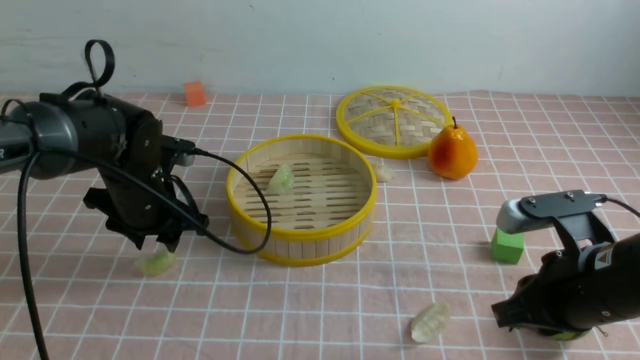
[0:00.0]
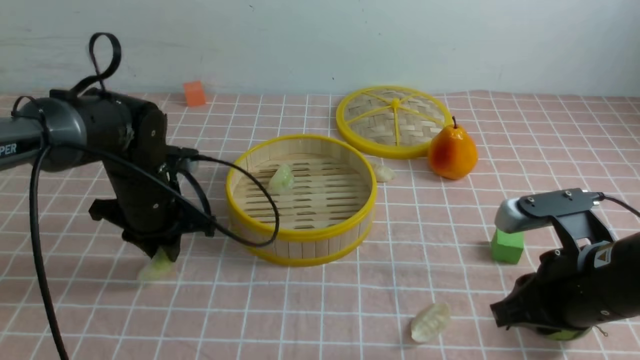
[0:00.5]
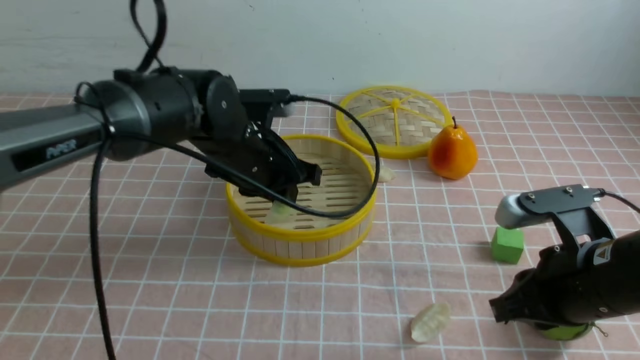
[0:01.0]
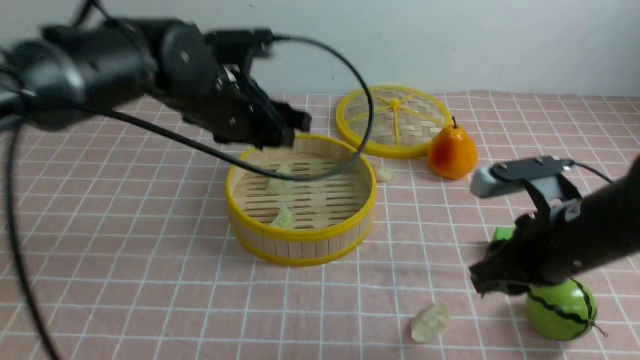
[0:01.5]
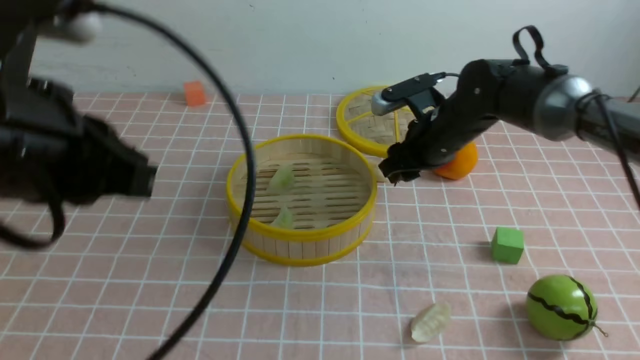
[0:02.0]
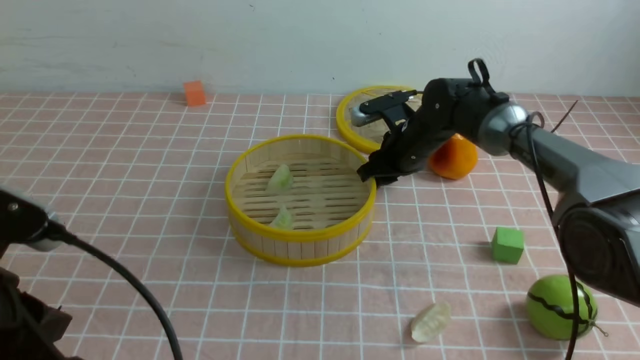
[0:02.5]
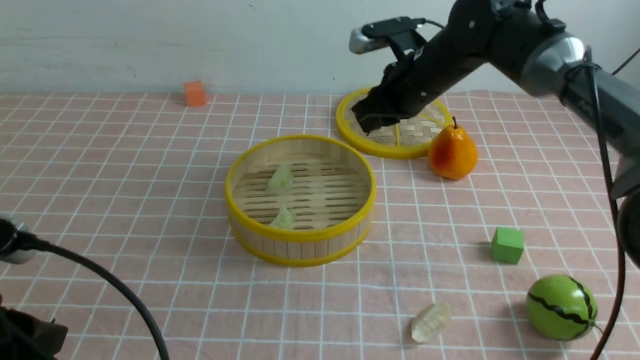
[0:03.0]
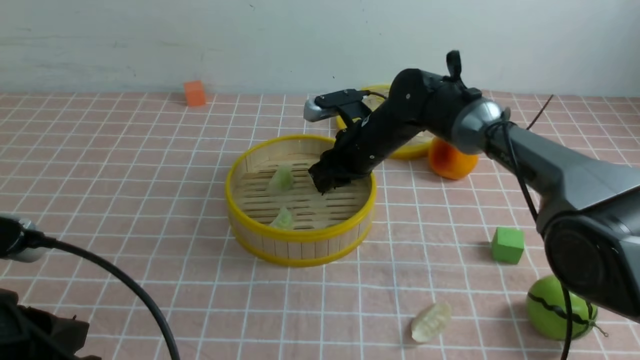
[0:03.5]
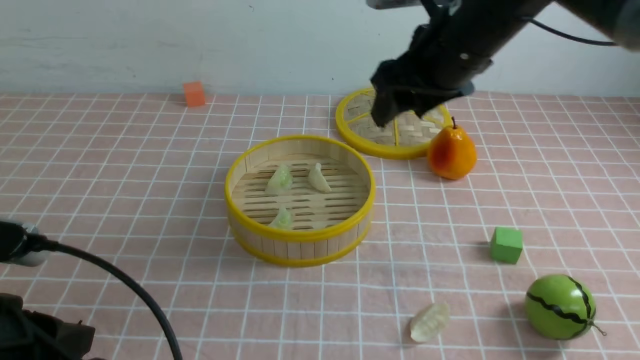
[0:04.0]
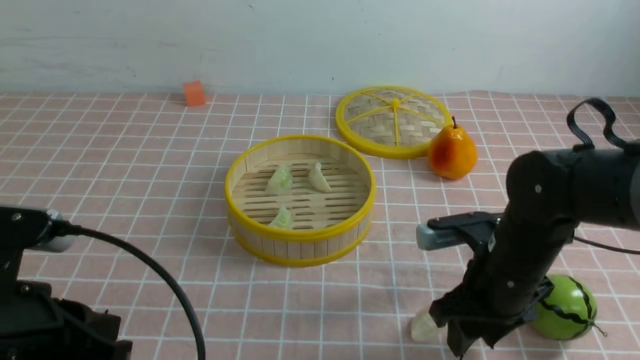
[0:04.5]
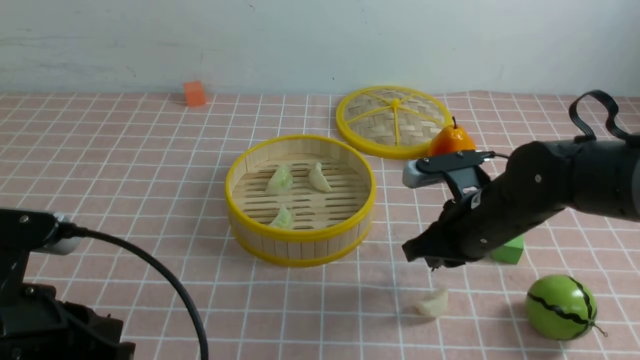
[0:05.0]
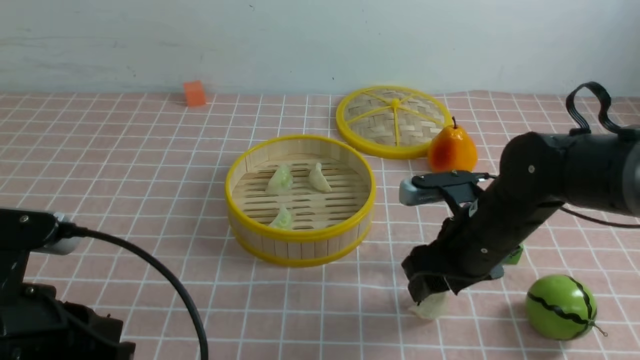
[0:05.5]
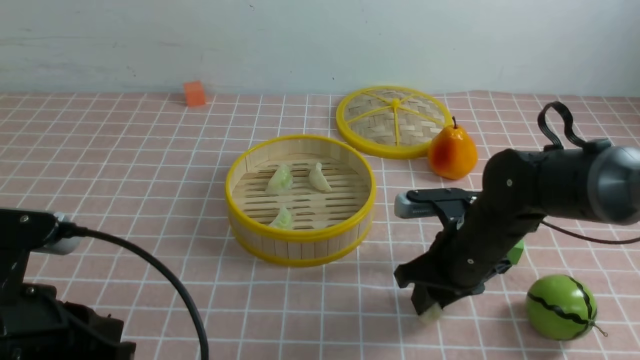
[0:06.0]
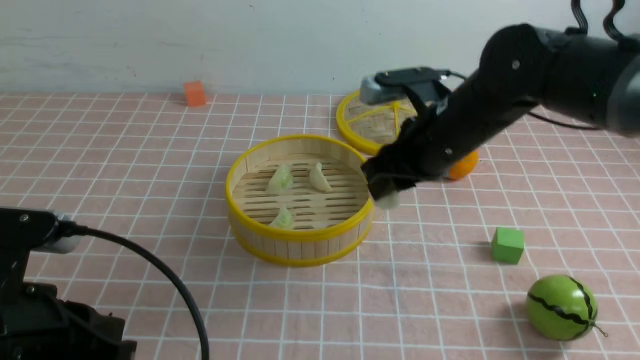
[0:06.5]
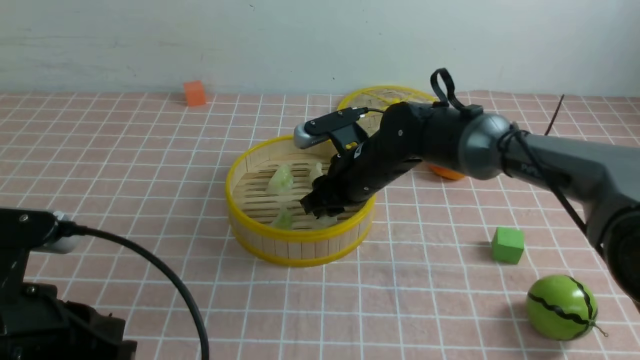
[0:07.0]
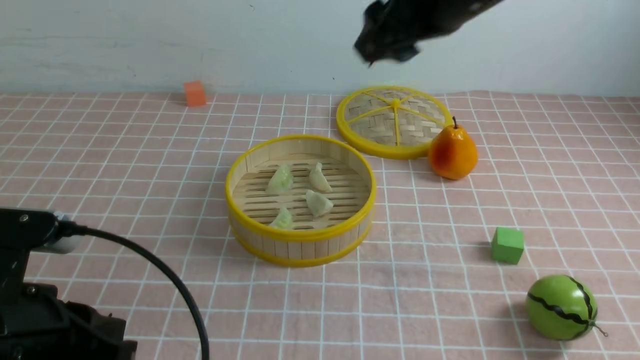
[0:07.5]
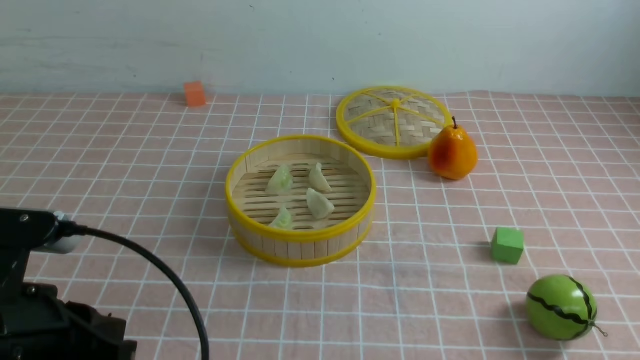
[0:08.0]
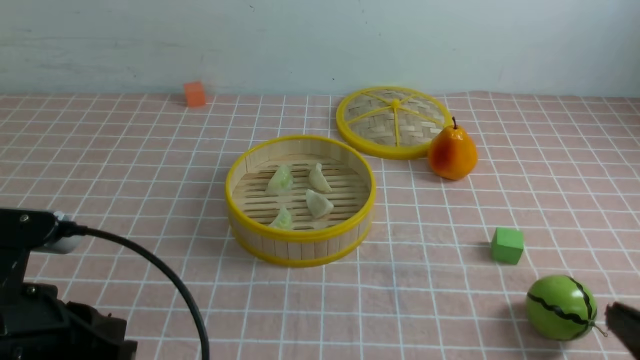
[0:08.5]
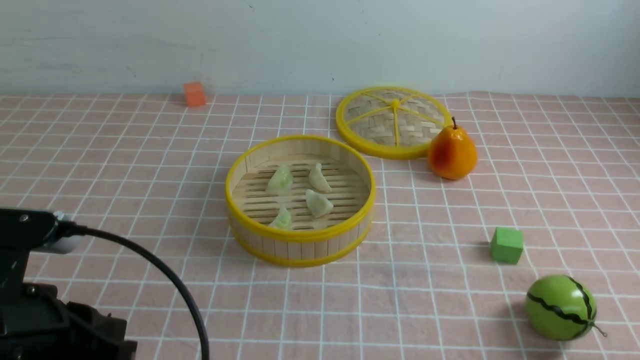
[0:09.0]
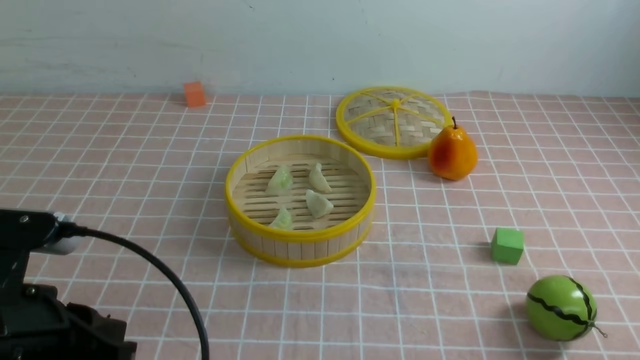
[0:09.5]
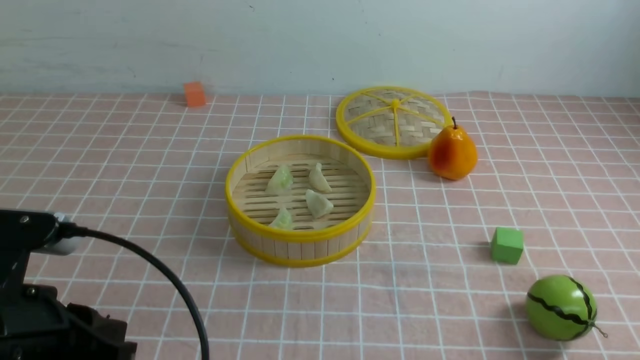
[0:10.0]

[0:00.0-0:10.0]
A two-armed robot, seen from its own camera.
Task of the whole recording: put the dumplings into the steamer on the table with the pink tablecloth.
Step, 0:02.0 to 0:02.5: use the right arm to grab a dumpling.
Step, 0:03.0 to 0:03.5: use the right arm to put the dumpling into the steamer.
Step, 0:04.0 to 0:06.0: use the right arm to grab a dumpling.
Step, 0:06.5 to 0:07.0: use the right arm to put the dumpling into the steamer.
0:00.0 to 0:02.0: The left gripper shifts about 25 cm backward and upward, and closes its fingers. The right gripper goes approximately 25 cm forward, and opens.
0:02.0 to 0:04.0: The left gripper goes about 10 cm downward and backward; the right gripper swings up and down, some 15 cm each way, with 3 reversals, and closes, then reopens.
0:04.0 to 0:06.0: The right gripper goes approximately 15 cm downward and backward, and closes its fingers.
0:06.0 to 0:08.0: The right gripper travels upward and backward by approximately 30 cm, and closes up.

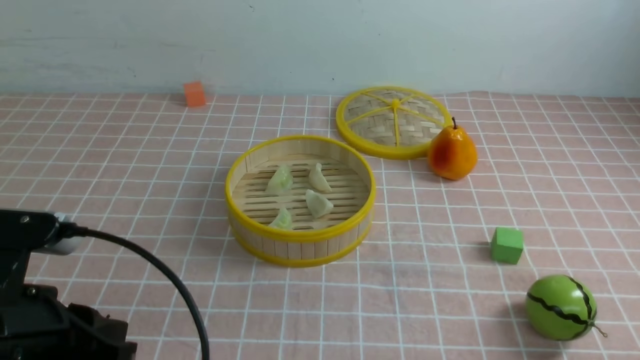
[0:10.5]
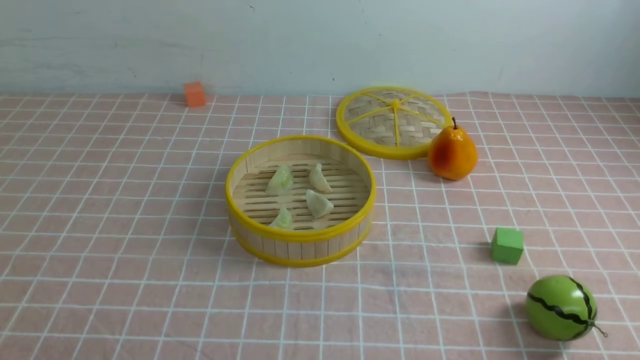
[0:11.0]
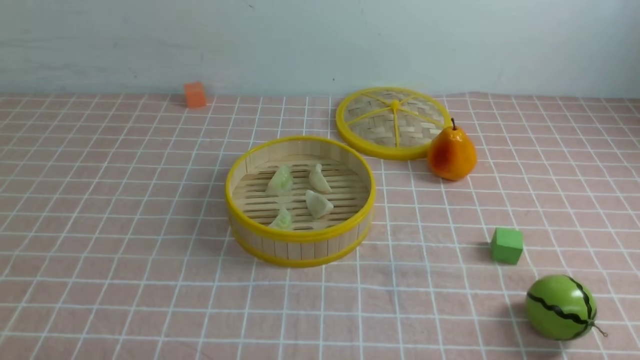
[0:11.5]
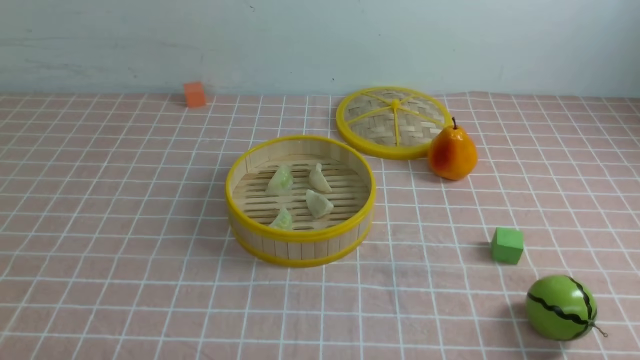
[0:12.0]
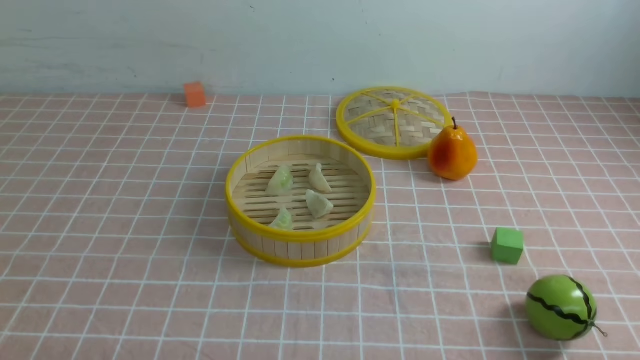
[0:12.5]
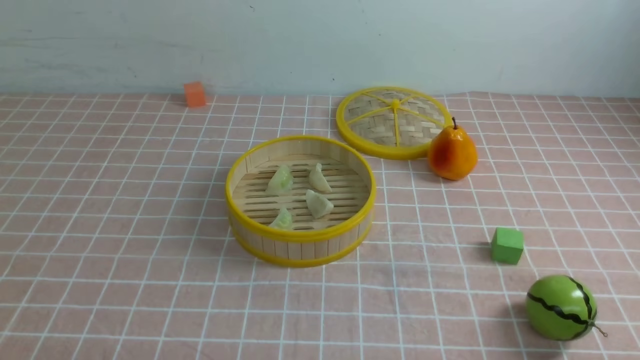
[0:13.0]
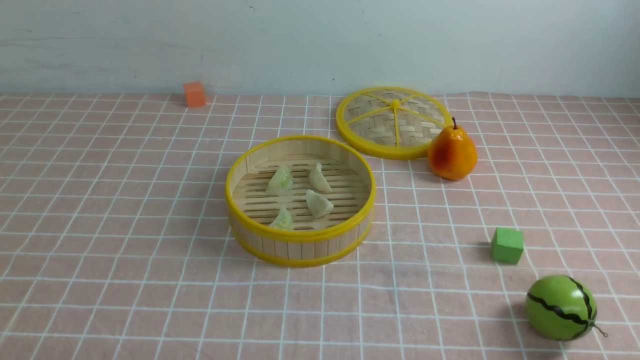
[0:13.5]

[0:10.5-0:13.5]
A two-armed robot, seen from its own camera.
Task of the whole recording: put the dumplings into the steamer on the table with the pink tablecloth.
0:10.5 to 0:12.0: The left gripper goes roughly 15 cm downward, backward and to the left.
0:12.0 to 0:13.5: The two grippers keep their place.
